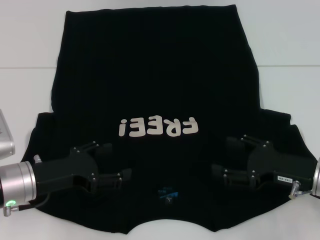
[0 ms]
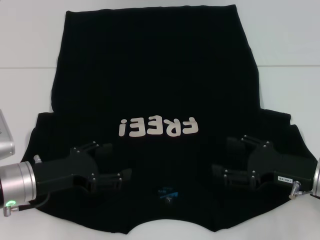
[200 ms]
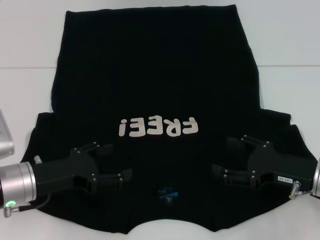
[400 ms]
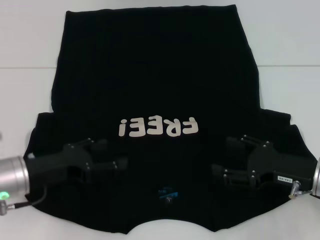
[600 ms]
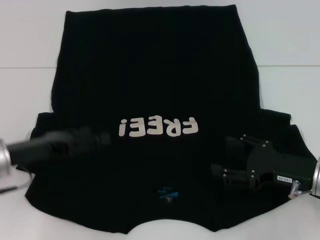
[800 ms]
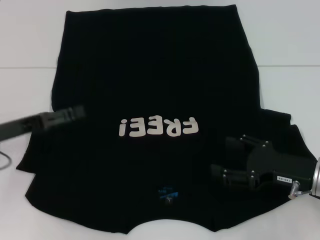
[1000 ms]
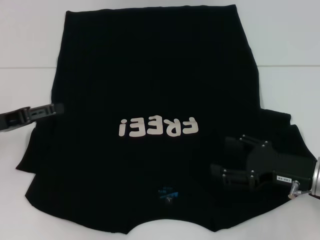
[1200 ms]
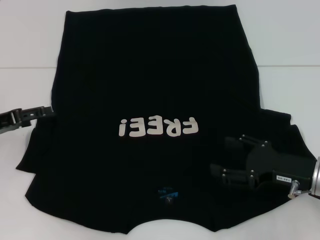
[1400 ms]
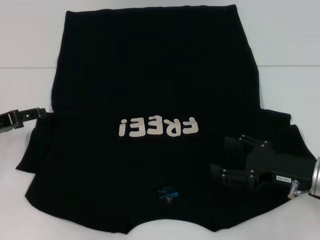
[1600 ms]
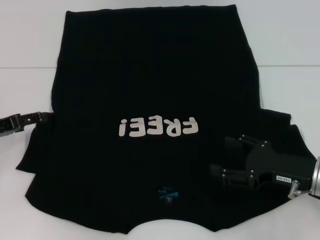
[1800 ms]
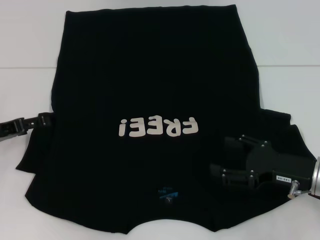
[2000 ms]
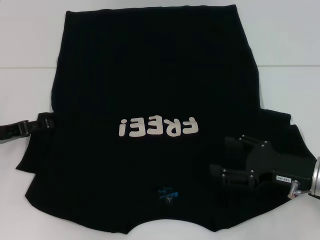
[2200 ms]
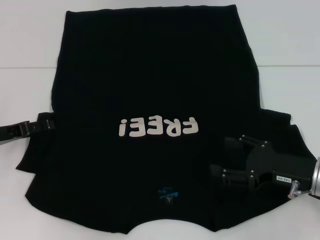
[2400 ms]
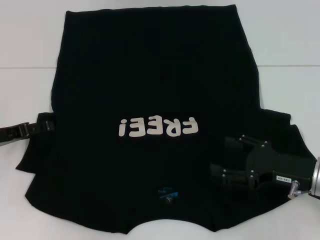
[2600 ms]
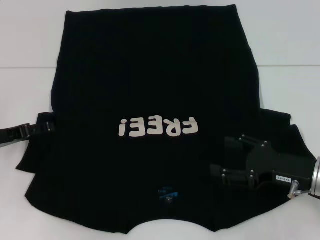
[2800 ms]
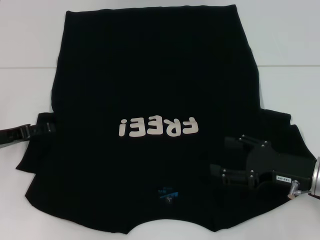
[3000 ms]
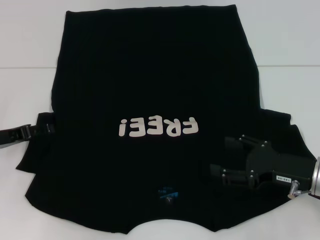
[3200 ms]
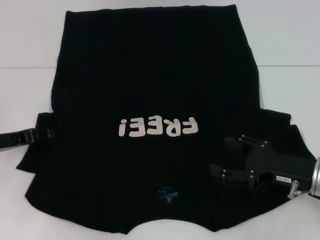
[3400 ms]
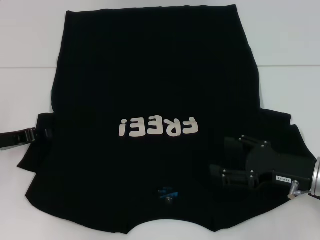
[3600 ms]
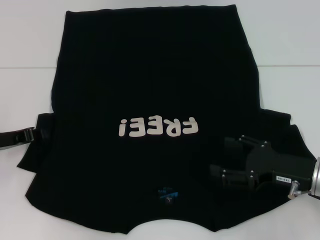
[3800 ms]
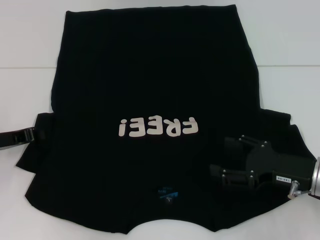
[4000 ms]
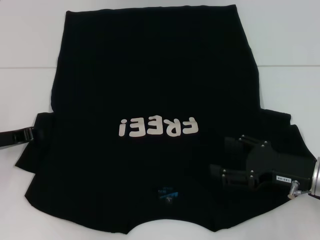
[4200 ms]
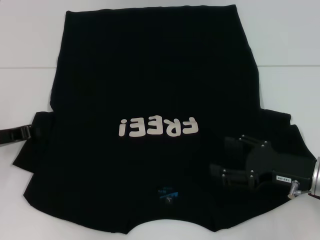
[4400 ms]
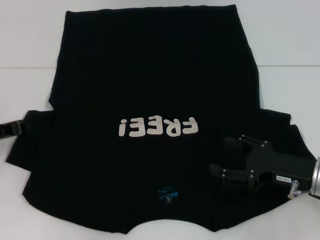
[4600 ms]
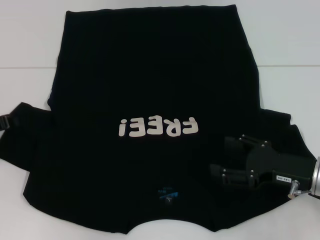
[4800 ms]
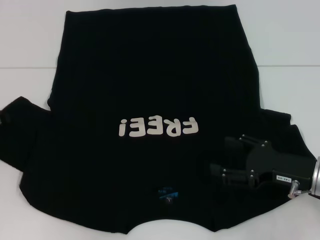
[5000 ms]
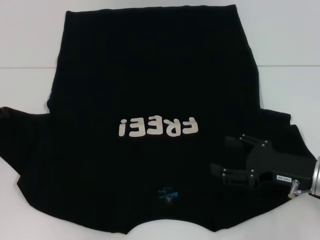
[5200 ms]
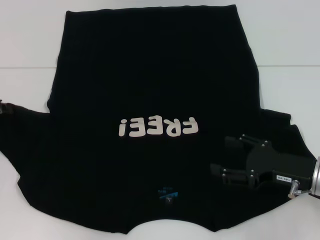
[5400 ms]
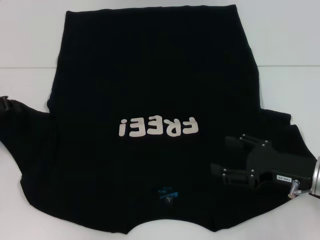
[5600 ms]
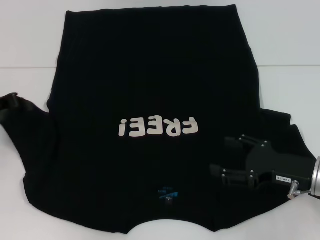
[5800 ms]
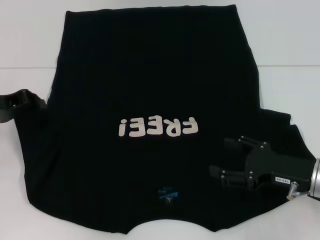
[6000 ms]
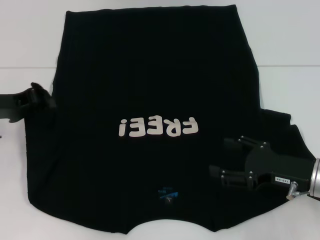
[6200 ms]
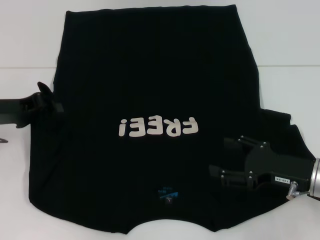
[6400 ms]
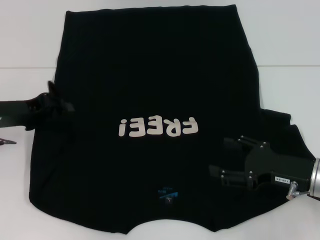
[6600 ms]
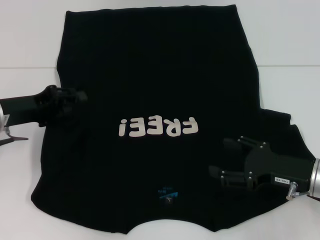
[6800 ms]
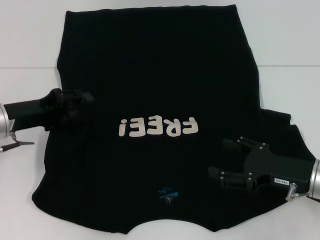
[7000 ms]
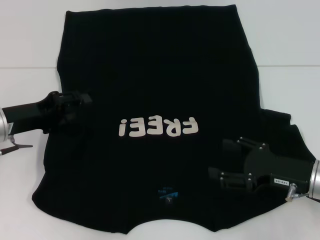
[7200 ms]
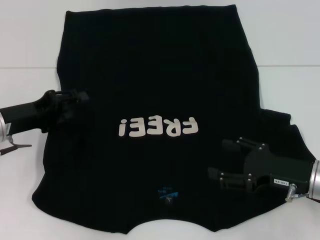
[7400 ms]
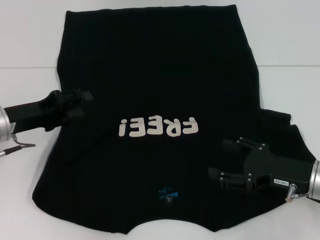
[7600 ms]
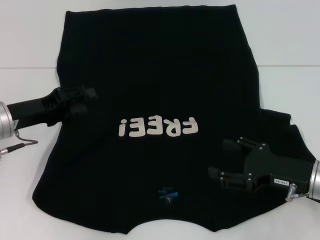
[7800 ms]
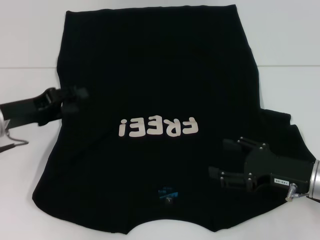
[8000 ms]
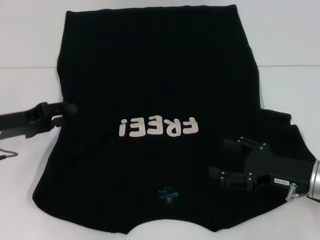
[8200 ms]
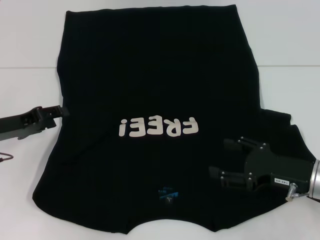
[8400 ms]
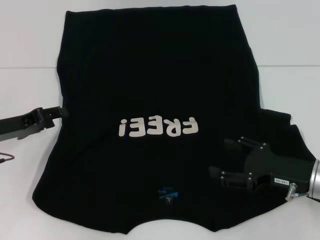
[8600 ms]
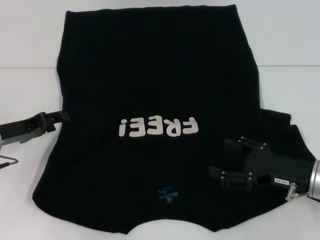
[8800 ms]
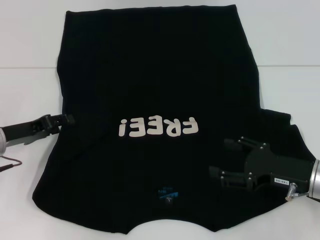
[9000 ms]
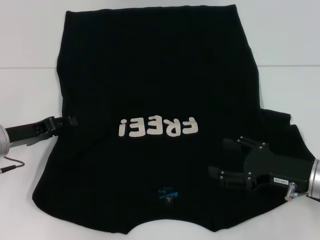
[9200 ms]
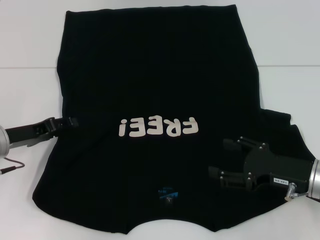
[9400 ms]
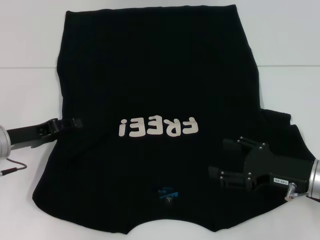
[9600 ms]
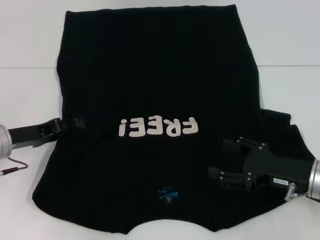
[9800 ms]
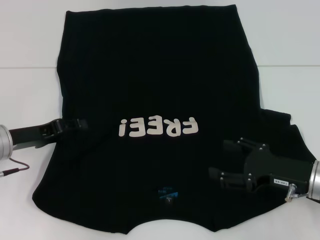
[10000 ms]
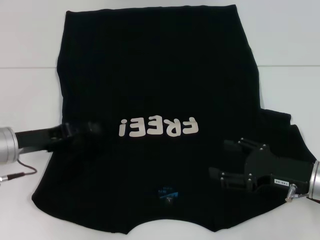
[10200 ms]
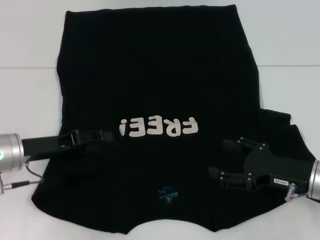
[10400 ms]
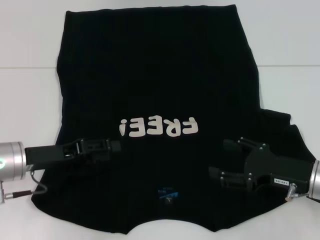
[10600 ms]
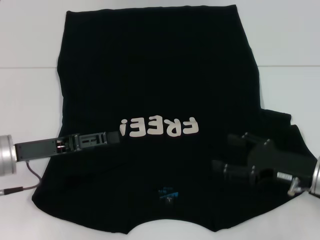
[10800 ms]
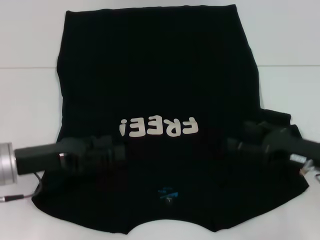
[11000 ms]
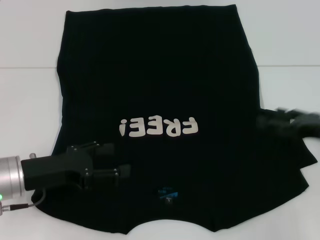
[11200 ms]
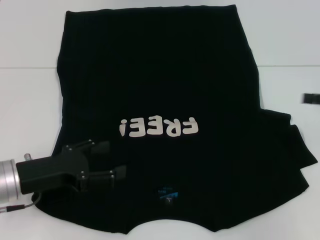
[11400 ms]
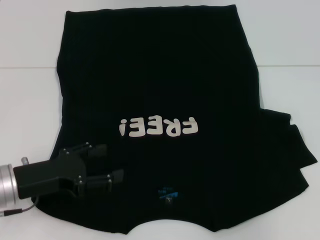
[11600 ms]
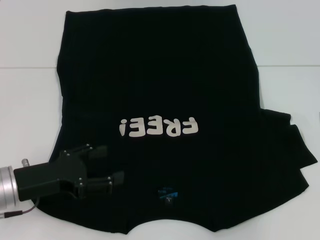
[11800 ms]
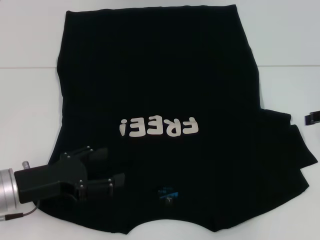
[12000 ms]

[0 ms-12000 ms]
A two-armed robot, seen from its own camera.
Step, 0 ms to 10400 ms: Fold the bottom left sleeve with your left hand.
0 ms to 1600 ms: The left gripper shifts some 10 cm to the left and forward.
1600 ms to 3000 ms: The grippers move only a little.
3000 ms to 4400 ms: The left gripper closes up.
4400 ms to 6000 ms: The left gripper is displaced upward by some 5 cm.
6000 ms to 7600 ms: The left gripper changes place by approximately 5 cm, and opens its fingers.
10400 ms to 12000 ms: The right gripper shifts roughly 15 cm upward, to the right and forward; the left gripper goes roughly 5 cm backward.

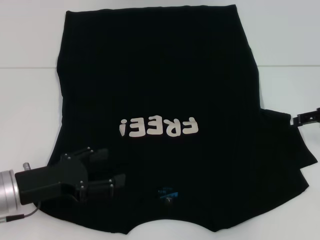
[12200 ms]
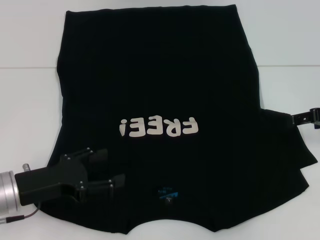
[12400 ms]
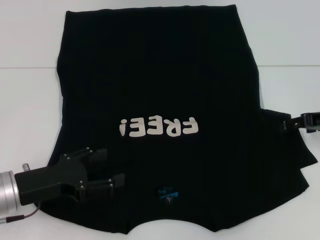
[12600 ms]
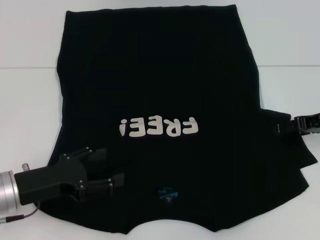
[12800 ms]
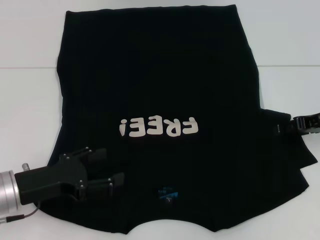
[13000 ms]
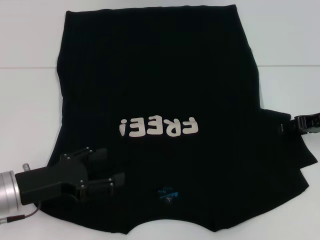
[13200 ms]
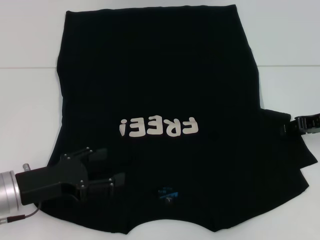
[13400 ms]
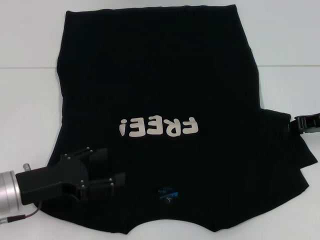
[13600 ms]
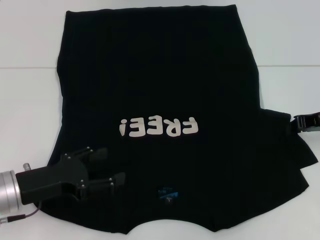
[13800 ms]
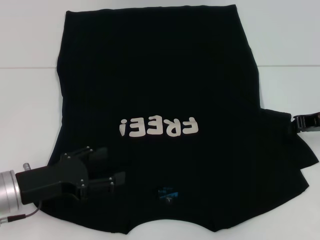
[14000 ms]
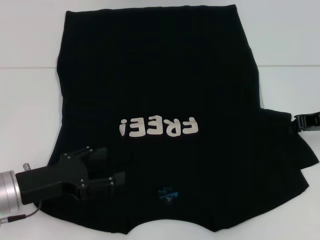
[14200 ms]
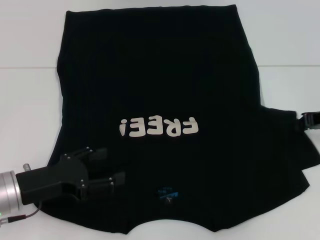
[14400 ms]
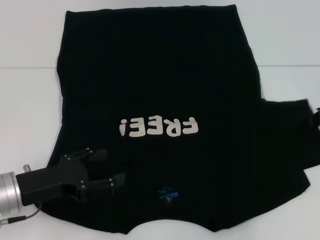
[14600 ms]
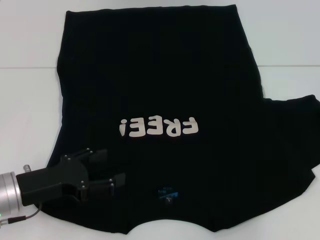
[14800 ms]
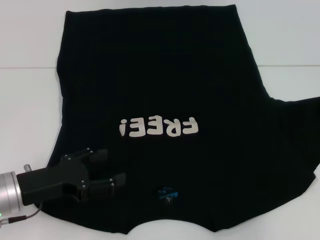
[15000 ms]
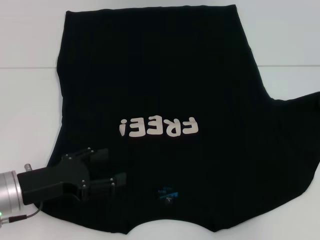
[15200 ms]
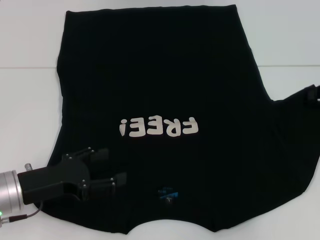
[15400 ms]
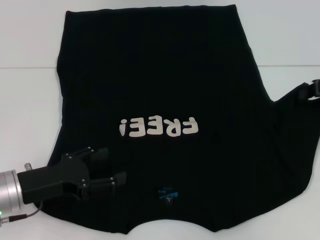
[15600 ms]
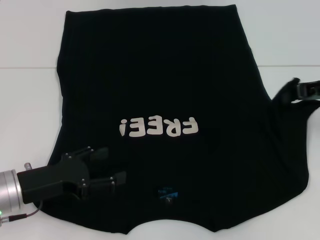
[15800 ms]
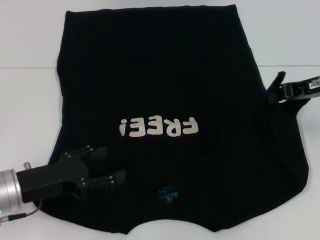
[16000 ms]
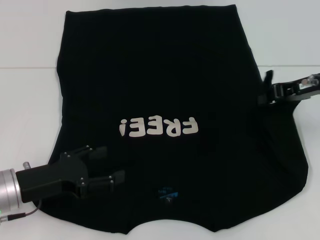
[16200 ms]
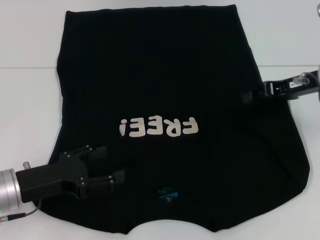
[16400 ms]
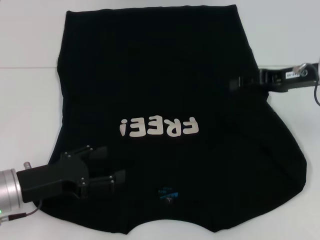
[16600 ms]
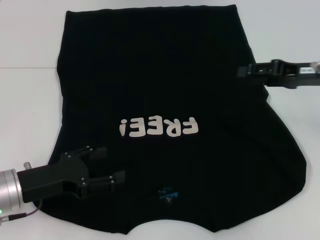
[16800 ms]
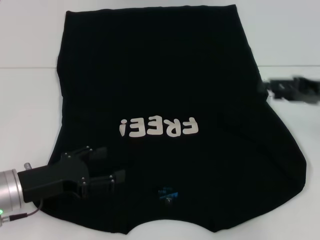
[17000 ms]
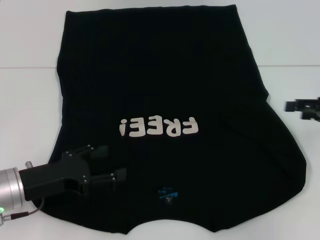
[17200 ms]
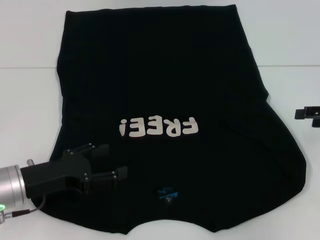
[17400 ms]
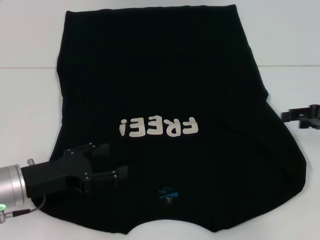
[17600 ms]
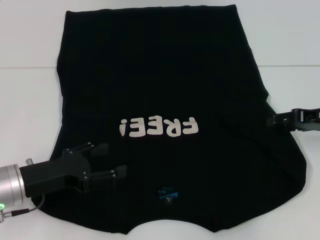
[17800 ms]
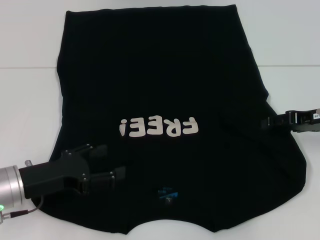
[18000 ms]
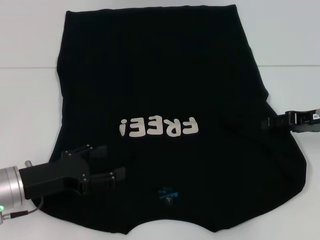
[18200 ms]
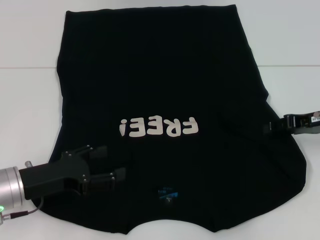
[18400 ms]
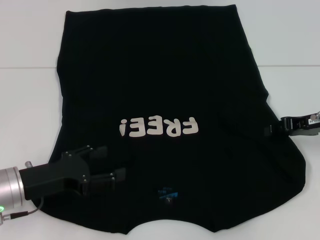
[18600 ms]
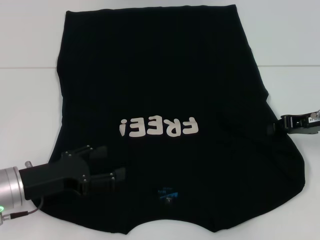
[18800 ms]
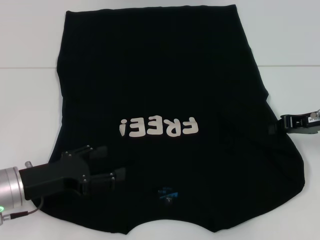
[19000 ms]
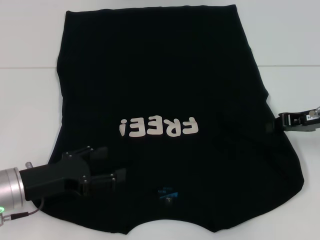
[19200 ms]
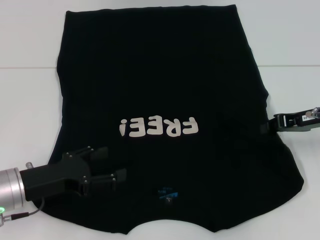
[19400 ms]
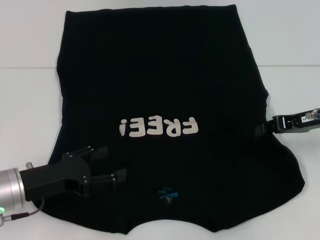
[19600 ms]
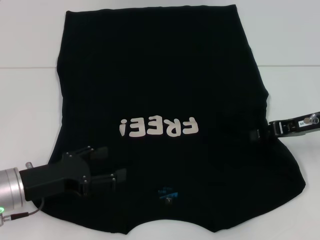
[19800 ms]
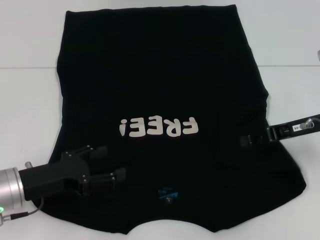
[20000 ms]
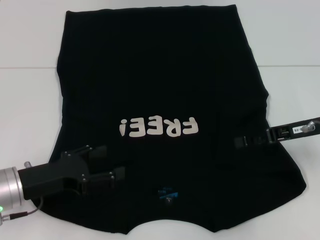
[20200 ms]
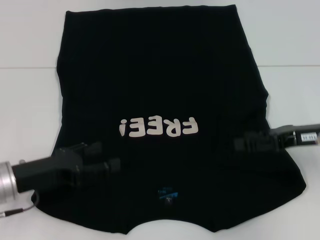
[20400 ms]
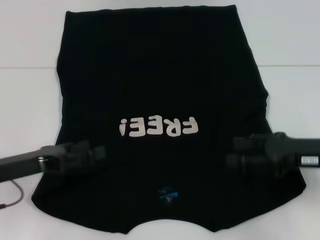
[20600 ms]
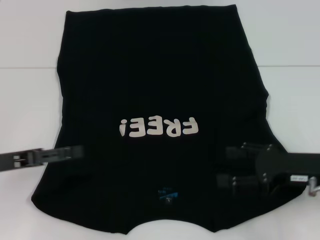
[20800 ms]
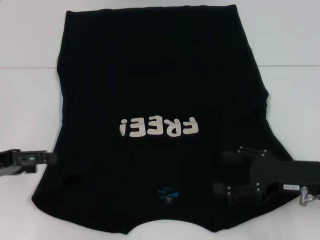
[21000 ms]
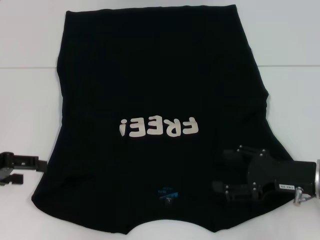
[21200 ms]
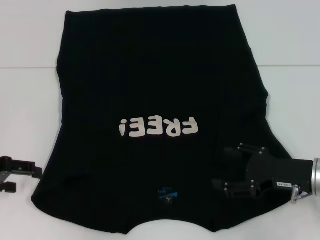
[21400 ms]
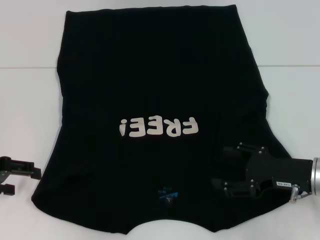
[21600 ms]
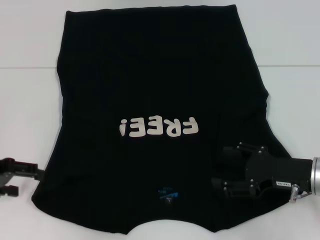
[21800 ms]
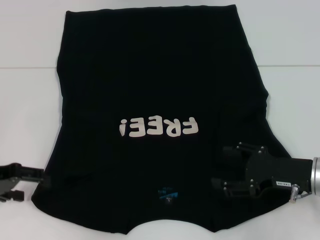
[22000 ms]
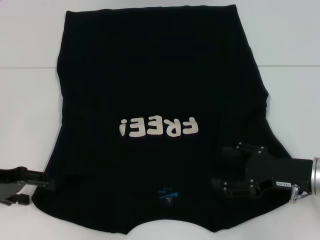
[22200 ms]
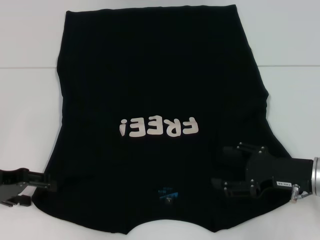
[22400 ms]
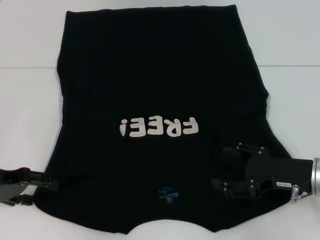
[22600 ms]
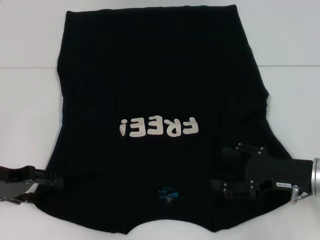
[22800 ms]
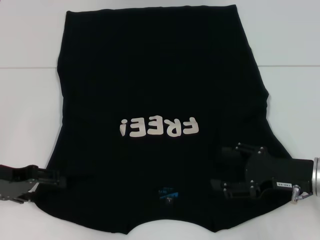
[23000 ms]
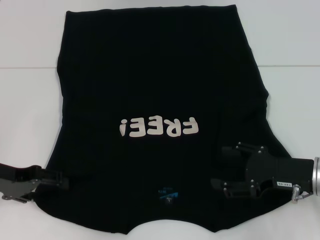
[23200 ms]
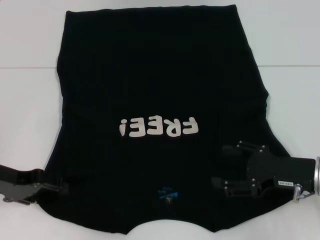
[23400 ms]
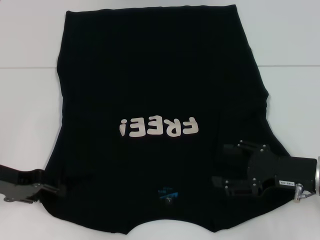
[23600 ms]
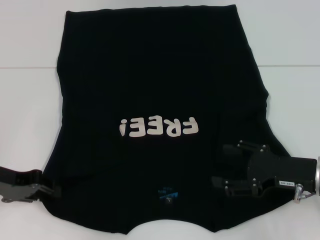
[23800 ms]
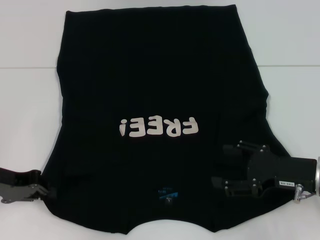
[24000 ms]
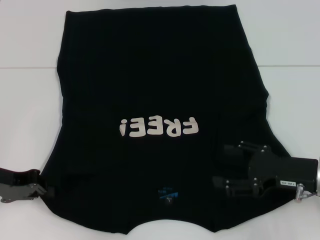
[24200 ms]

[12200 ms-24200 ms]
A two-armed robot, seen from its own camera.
Step, 12200 ms to 20400 ms: Fold the bottom right sleeve with your right hand.
Step, 20600 ms to 24200 ms: Grab the bottom left corner with your left hand.
12200 ms to 13800 ms: The right gripper closes up.
13800 ms to 15200 ms: The right gripper heads to the right, covering some 5 cm.
15200 ms to 16600 ms: The right gripper travels to the left by about 10 cm.
16600 ms to 18200 ms: The right gripper is displaced downward by roughly 5 cm, and opens.
18200 ms to 19800 ms: The right gripper closes up.
19800 ms to 21200 ms: The right gripper travels backward and downward by about 10 cm, and opens its fingers. The left gripper is displaced to the left and upward by approximately 10 cm.
21200 ms to 22600 ms: The grippers stay close to where they were, moving slightly.
22600 ms to 24200 ms: The left gripper closes its fingers.
